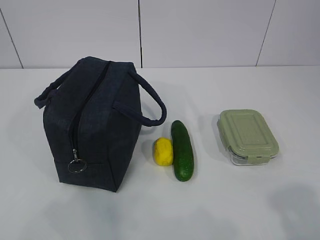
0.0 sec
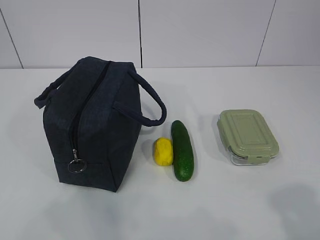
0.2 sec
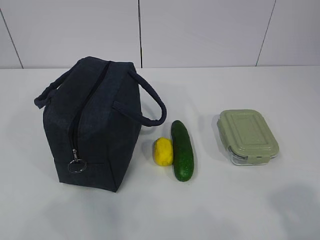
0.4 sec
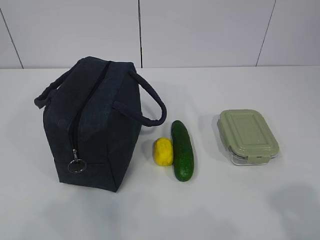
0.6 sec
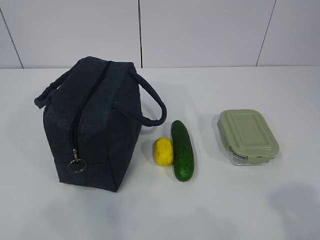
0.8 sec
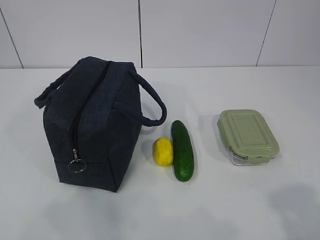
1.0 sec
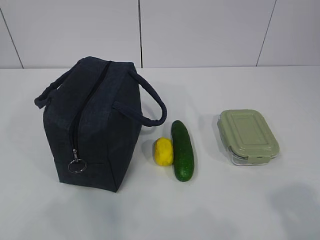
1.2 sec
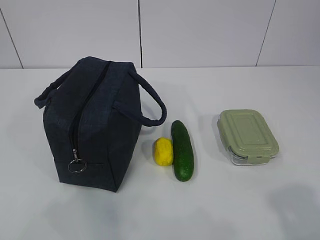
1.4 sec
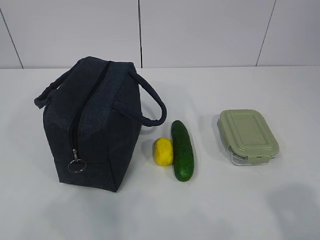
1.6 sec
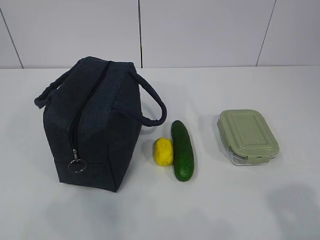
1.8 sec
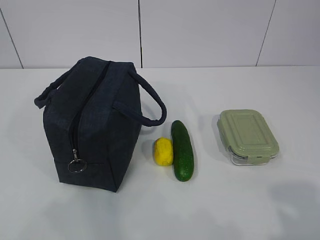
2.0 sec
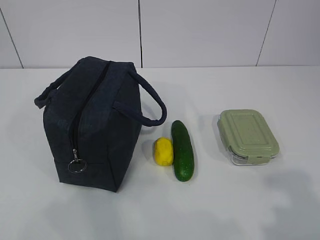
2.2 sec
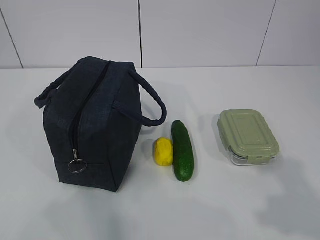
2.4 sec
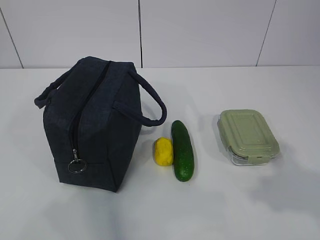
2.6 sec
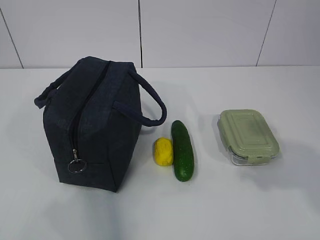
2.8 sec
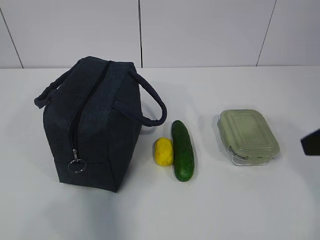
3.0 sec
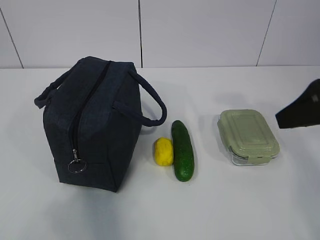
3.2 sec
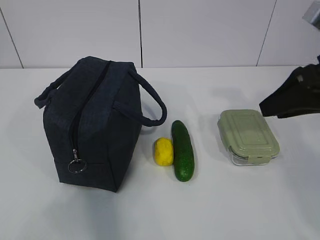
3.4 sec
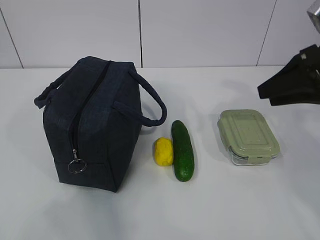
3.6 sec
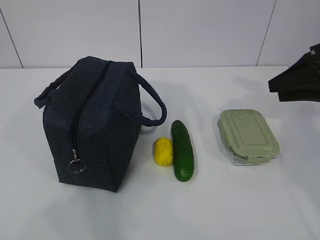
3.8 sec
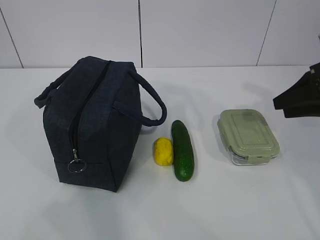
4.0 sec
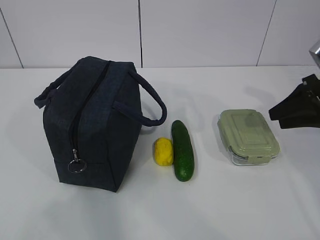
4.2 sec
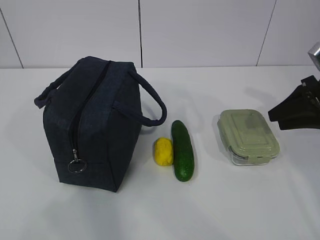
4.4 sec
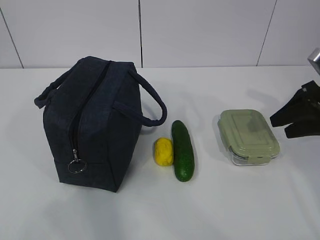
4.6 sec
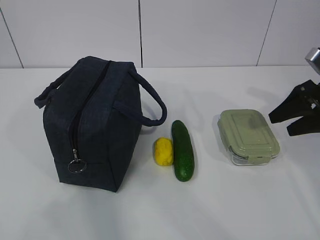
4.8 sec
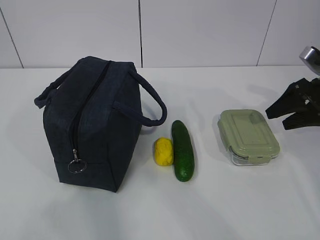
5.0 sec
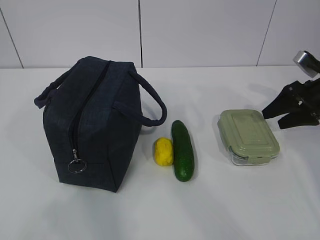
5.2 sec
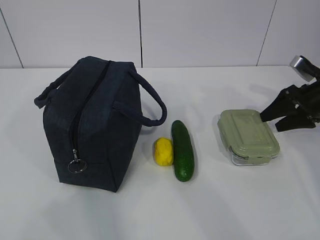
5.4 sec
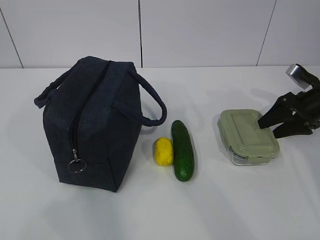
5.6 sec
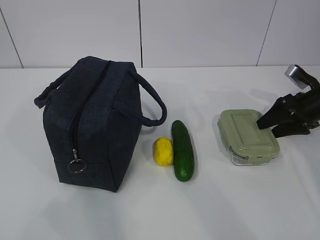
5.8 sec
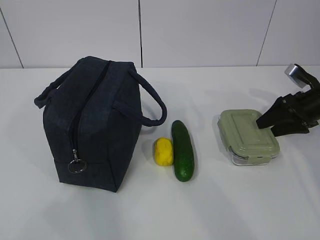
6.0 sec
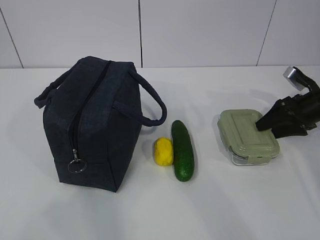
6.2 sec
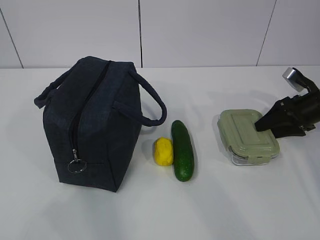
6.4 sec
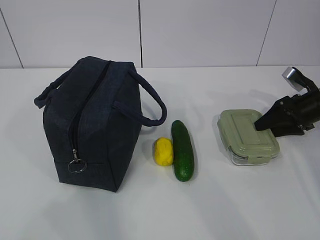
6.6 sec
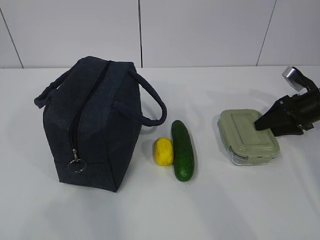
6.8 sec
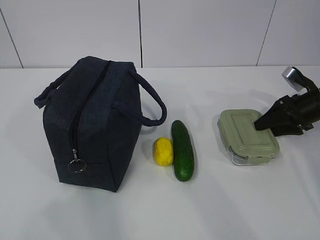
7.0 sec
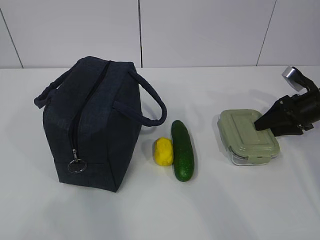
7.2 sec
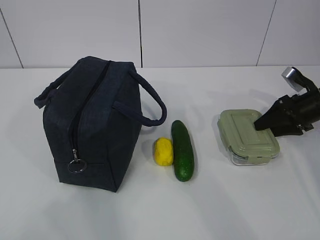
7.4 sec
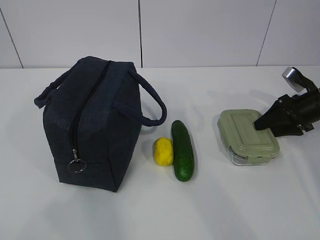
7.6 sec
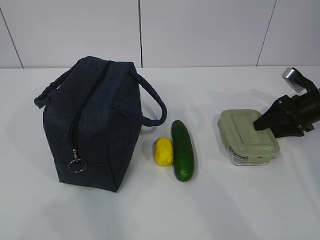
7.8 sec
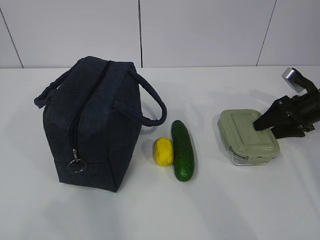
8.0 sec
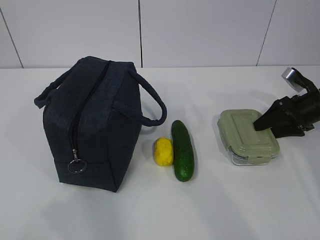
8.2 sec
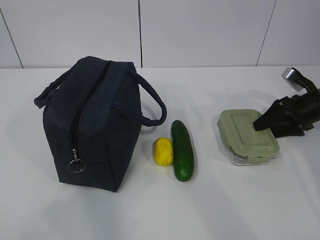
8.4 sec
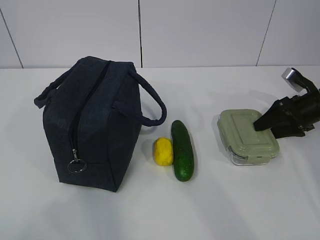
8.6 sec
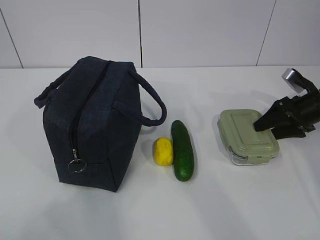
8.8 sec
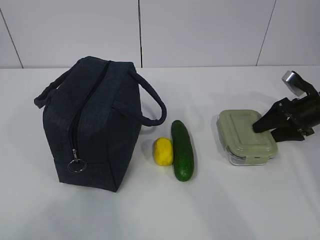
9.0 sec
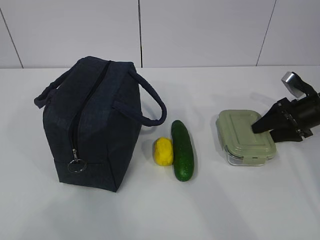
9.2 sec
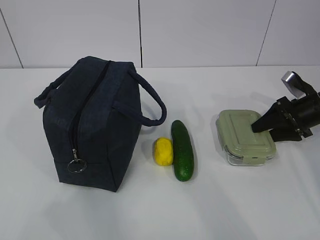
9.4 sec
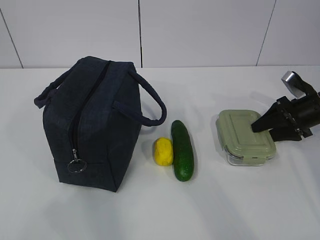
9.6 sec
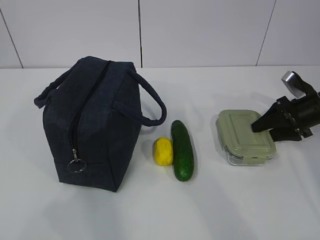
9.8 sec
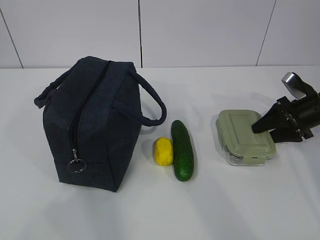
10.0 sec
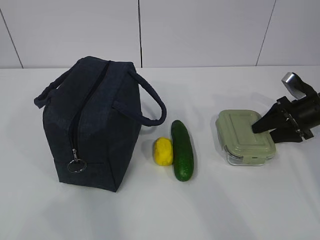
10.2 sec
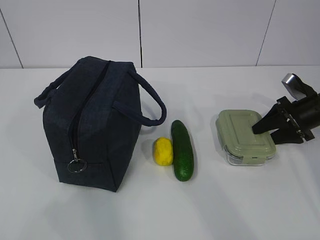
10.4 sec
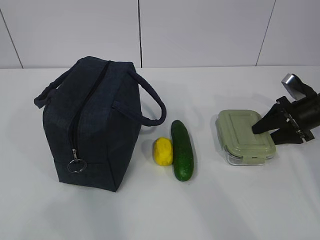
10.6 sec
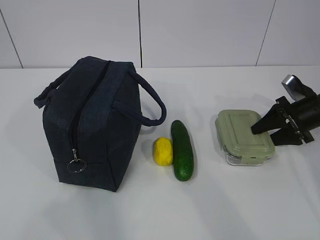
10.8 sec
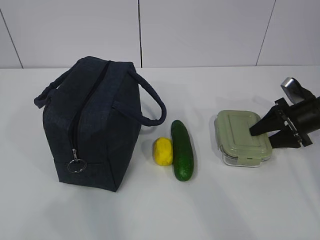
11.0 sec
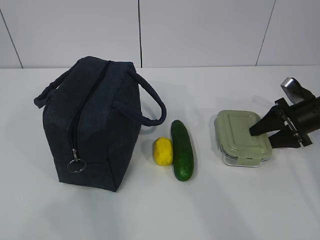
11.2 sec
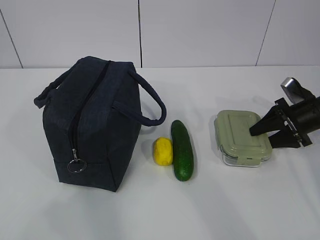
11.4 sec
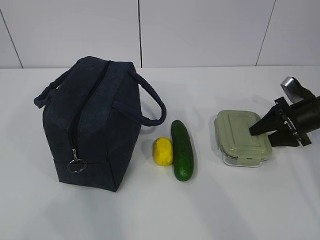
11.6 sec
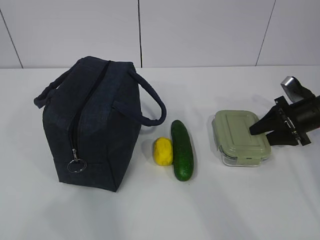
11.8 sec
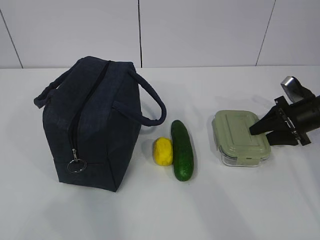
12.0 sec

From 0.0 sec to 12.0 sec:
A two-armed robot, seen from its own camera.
From 1.6 sec to 3.0 sec: The right gripper travels forward by roughly 20 cm.
From 3.0 sec to 4.4 sec: The right gripper travels forward, downward and to the right by approximately 20 cm.
From 4.4 sec to 6.0 sec: The right gripper is displaced downward and forward by some 10 cm, and opens.
From 6.0 sec to 9.0 sec: Neither gripper changes place.
From 9.0 sec to 12.0 sec: The grippers make only small movements.

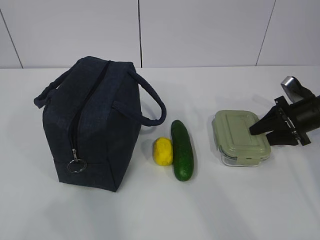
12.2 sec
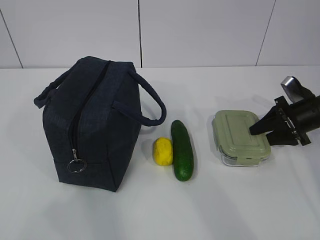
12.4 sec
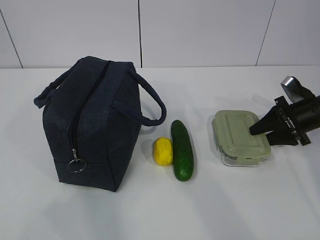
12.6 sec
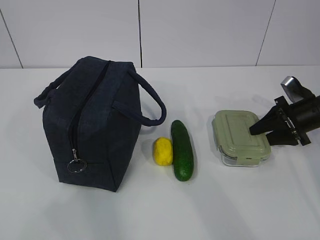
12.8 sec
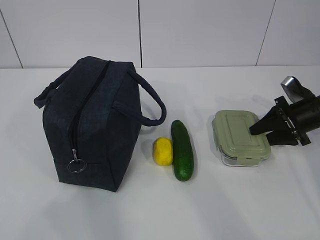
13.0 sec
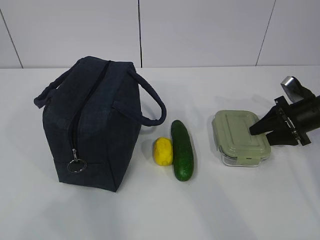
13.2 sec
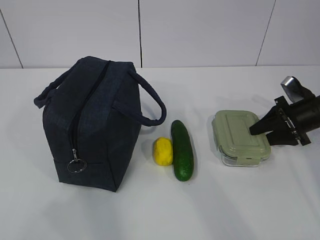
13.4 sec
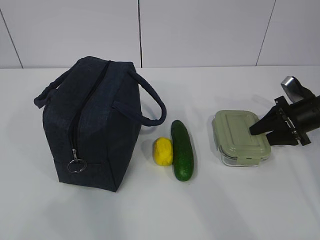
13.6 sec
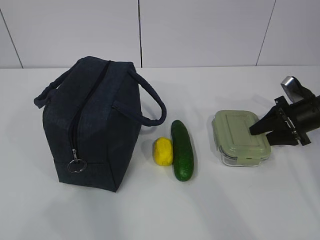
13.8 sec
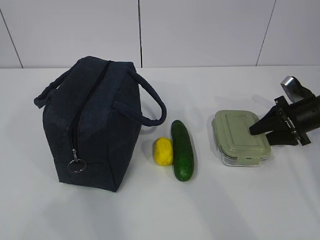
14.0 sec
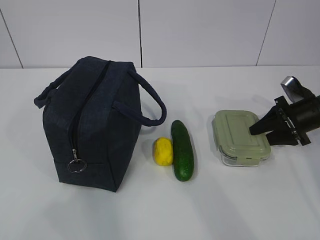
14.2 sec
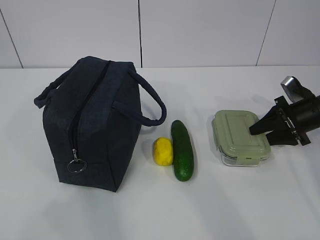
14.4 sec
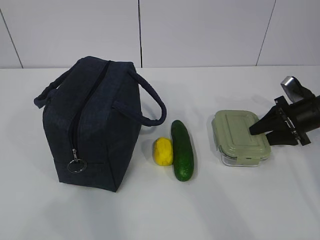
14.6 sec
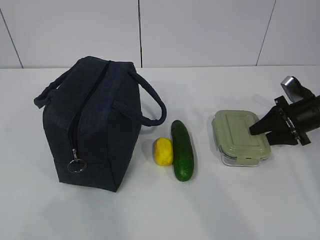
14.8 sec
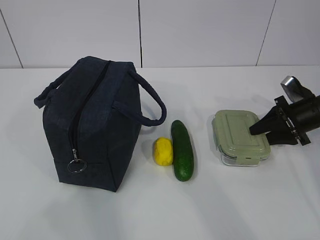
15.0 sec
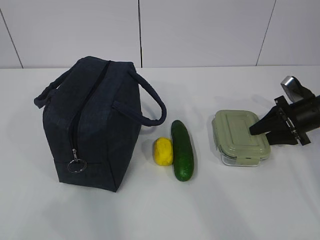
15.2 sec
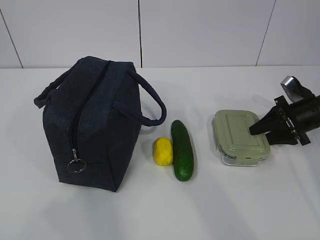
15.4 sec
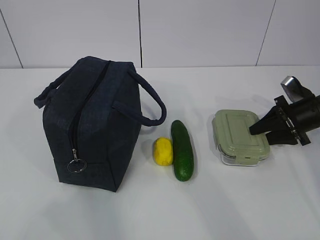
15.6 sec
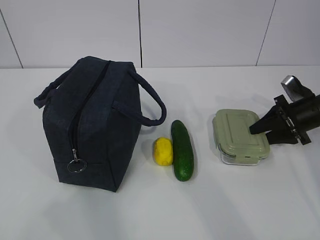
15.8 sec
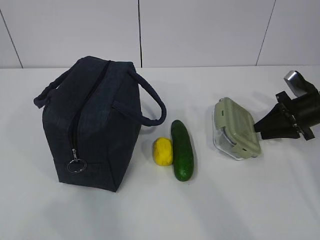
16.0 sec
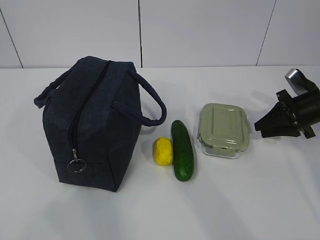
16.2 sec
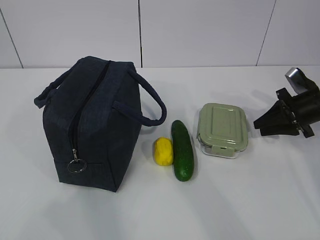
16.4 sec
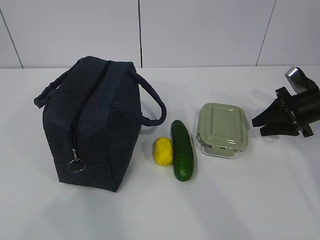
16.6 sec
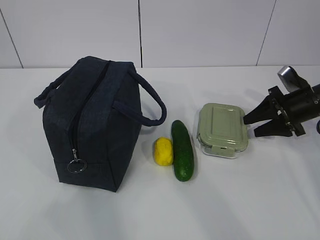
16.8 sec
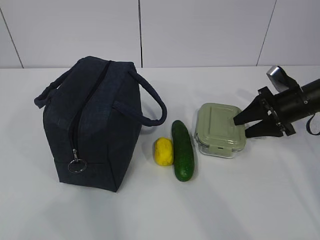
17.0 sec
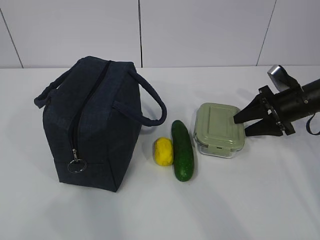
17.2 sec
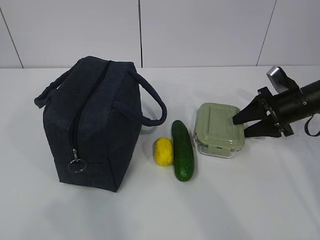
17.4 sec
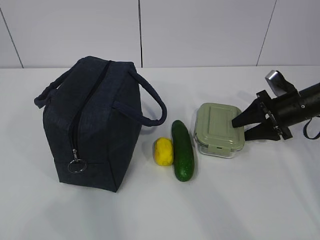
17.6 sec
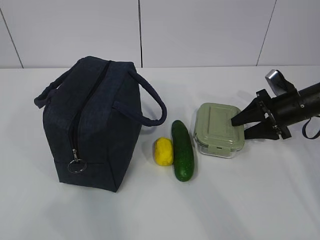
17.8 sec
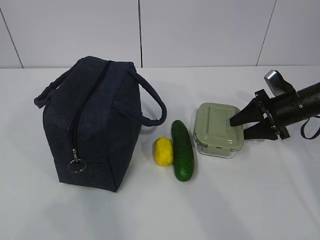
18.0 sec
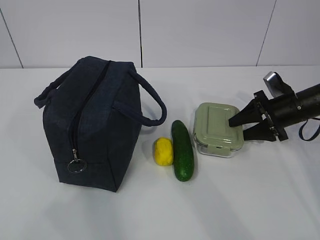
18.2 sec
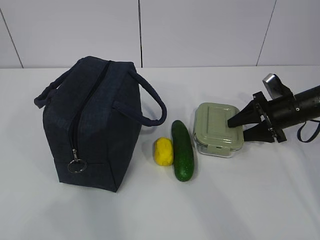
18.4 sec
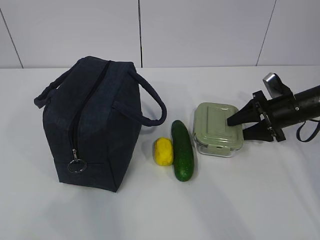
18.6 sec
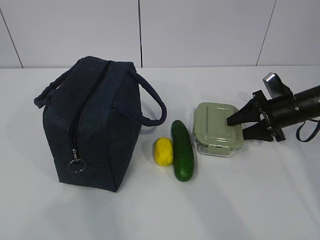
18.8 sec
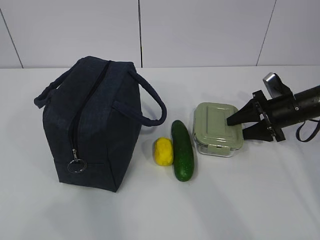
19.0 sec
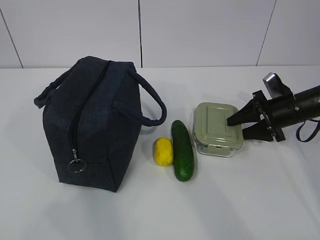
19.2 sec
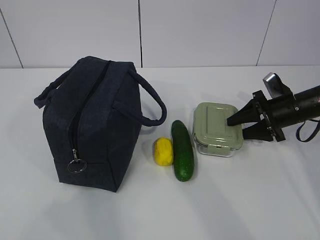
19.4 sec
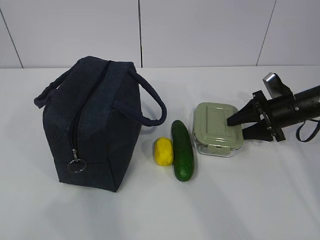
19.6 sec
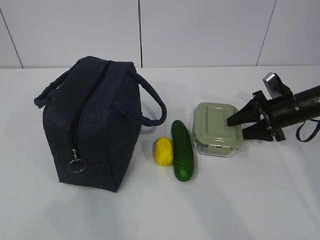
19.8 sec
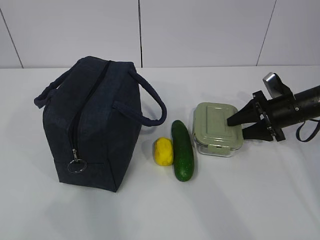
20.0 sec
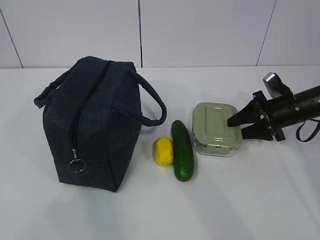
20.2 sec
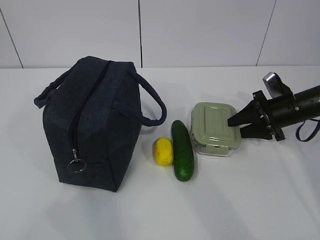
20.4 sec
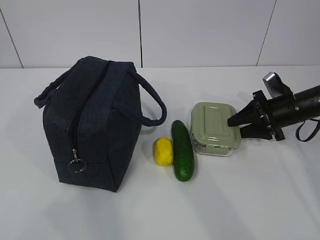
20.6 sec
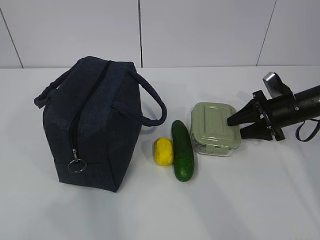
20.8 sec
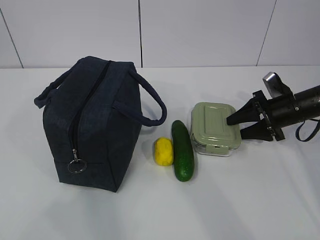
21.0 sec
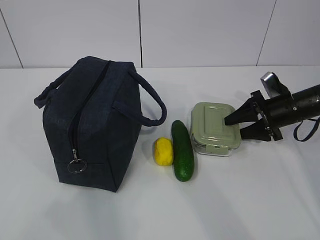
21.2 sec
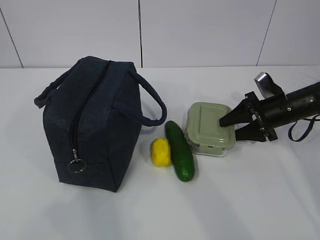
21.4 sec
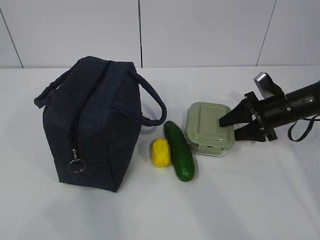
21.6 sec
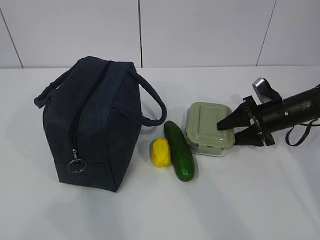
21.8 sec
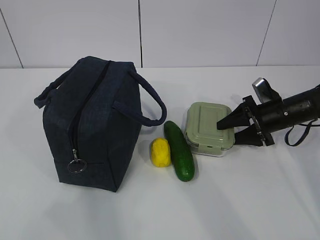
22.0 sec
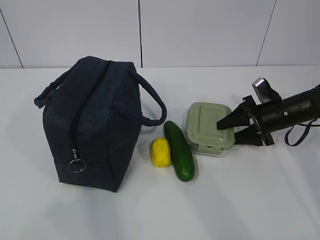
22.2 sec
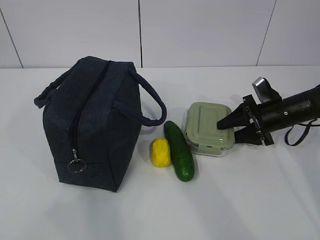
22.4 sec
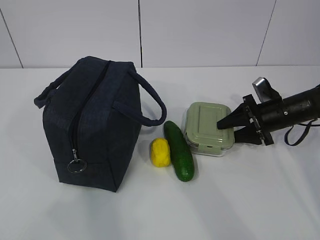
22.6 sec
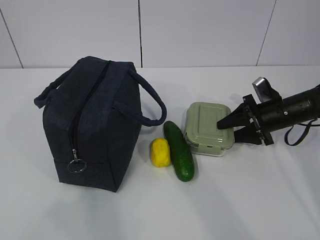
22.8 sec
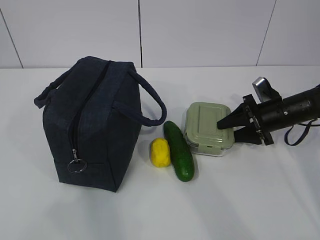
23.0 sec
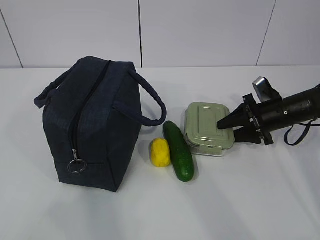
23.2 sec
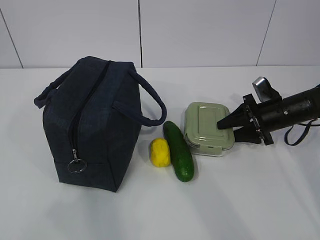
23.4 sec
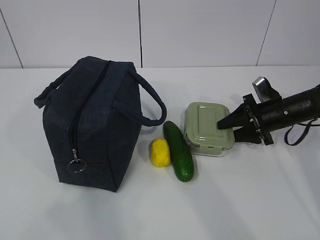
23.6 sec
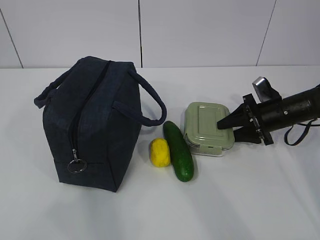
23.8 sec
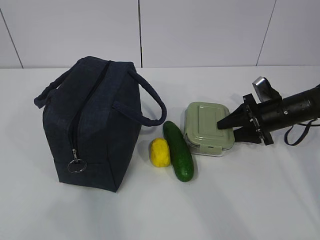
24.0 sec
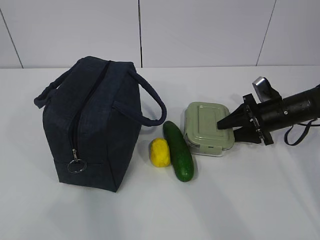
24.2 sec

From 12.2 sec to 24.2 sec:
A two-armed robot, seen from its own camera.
Step, from 12.2 sec to 22.0 sec: Grab the lunch box with your right hand.
From 12.2 sec to 15.2 sec: Both grippers stay put.
From 15.2 sec to 18.2 sec: The grippers move only a little.
From 18.2 sec to 21.2 sec: Neither gripper changes place.
From 21.2 sec to 22.6 sec: The grippers make only small movements.
From 22.6 sec to 24.2 sec: Neither gripper changes place.
